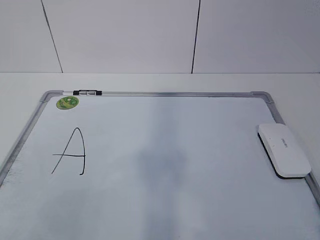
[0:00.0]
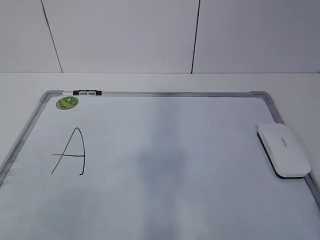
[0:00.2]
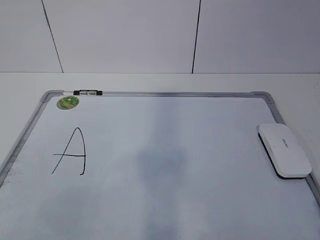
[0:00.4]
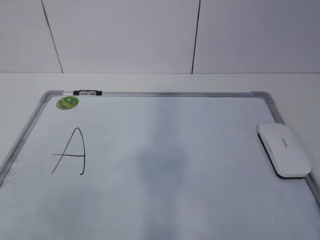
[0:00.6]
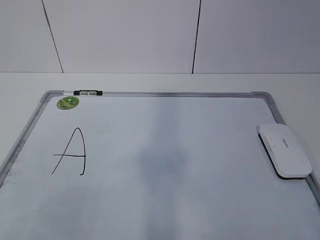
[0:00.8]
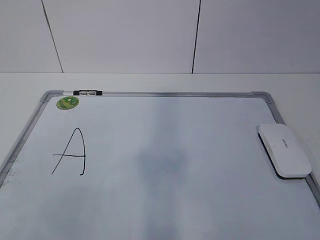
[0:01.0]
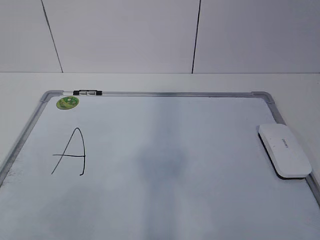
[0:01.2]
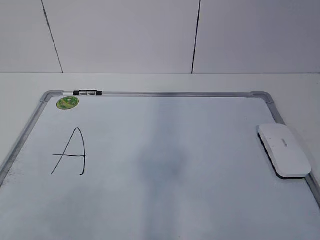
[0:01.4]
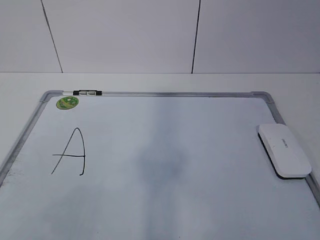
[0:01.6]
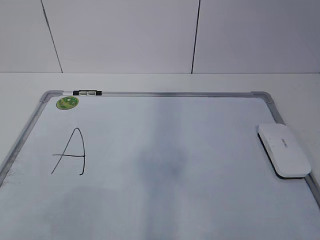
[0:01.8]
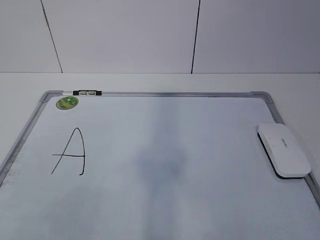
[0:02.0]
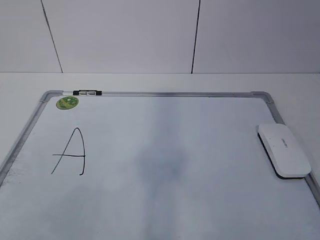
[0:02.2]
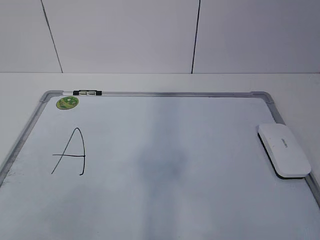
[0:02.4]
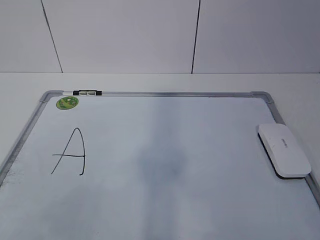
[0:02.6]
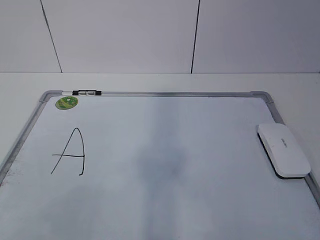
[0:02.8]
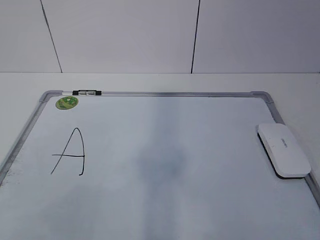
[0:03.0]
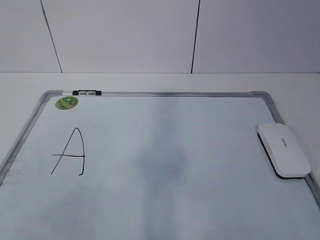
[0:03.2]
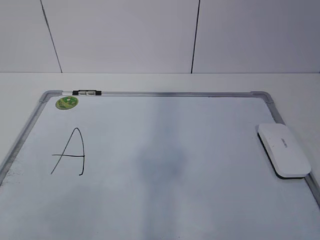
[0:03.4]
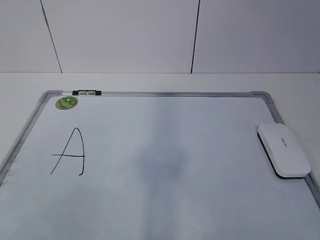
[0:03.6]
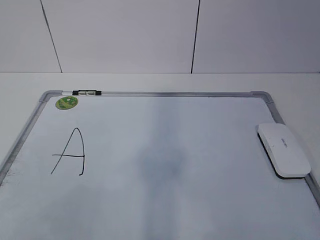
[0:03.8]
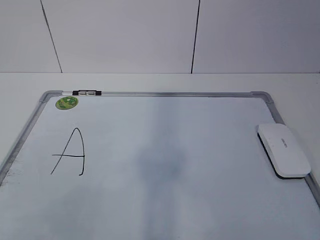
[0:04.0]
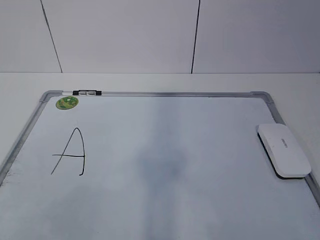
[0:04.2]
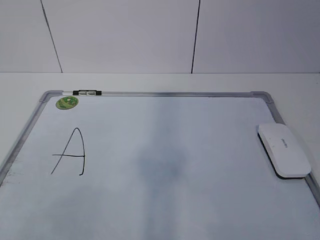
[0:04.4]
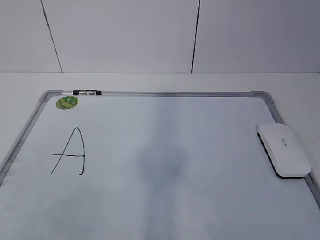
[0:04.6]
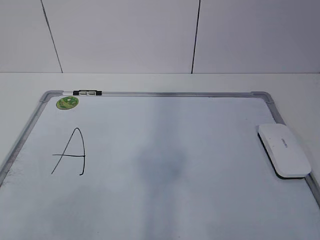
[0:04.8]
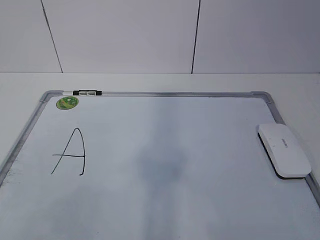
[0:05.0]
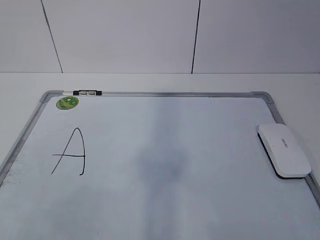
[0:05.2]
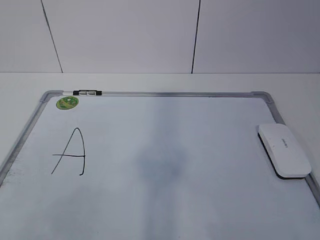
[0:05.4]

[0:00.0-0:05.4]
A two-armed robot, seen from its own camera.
Task of the whole recording: pick up the eraser on the blackboard and erase the letter "a".
0:01.4 to 0:04.0: Both grippers stay put.

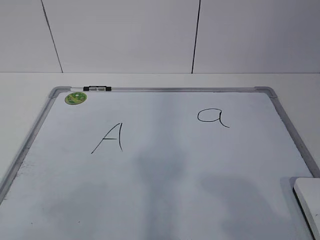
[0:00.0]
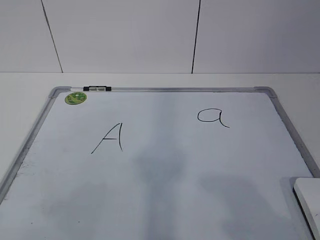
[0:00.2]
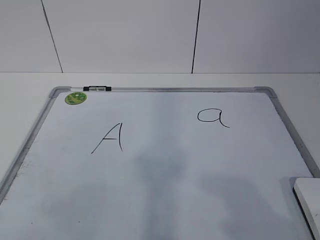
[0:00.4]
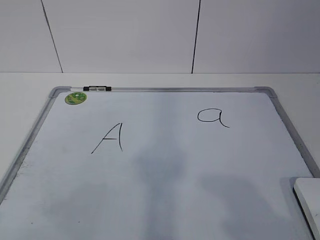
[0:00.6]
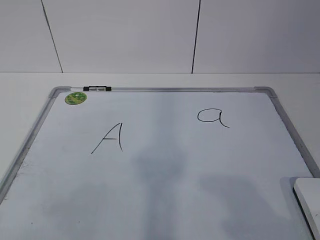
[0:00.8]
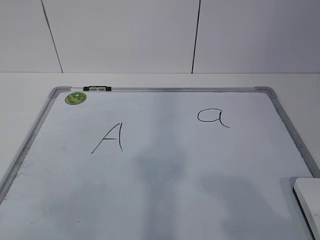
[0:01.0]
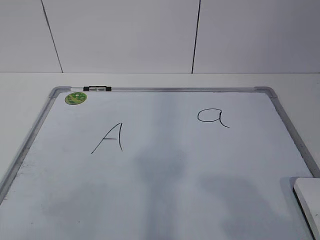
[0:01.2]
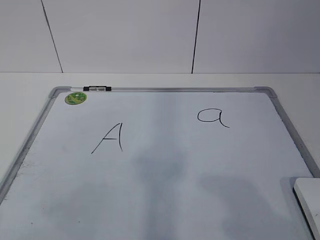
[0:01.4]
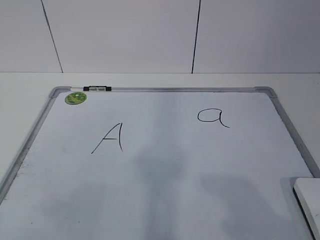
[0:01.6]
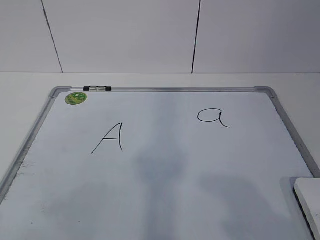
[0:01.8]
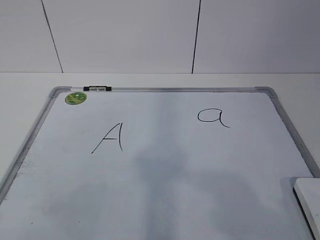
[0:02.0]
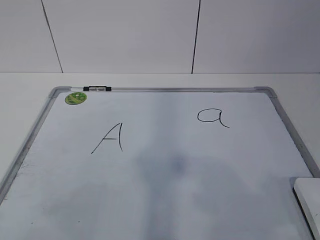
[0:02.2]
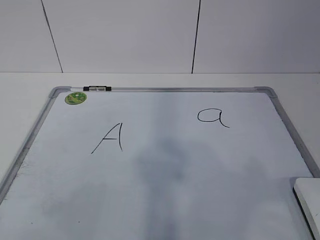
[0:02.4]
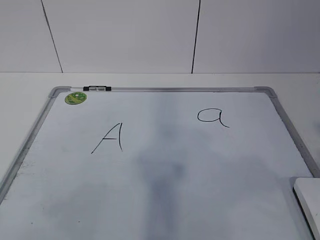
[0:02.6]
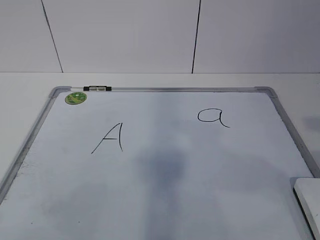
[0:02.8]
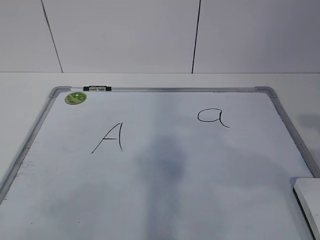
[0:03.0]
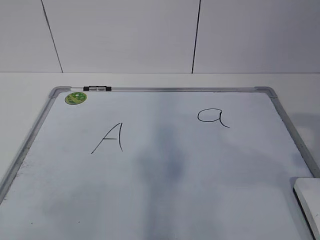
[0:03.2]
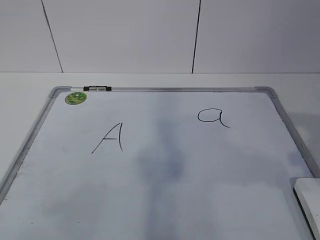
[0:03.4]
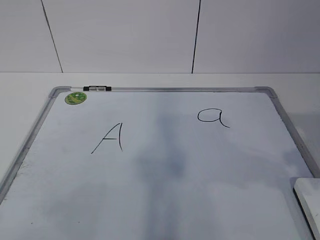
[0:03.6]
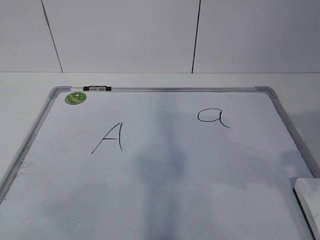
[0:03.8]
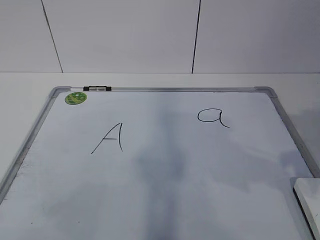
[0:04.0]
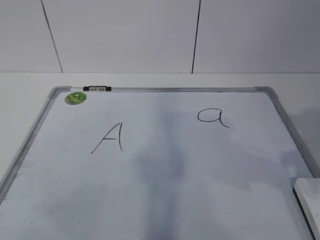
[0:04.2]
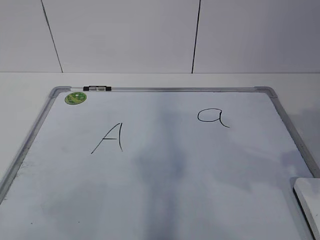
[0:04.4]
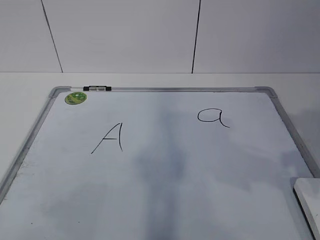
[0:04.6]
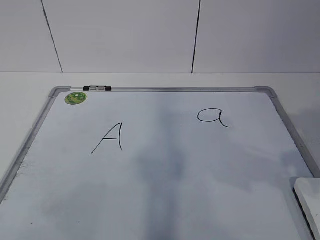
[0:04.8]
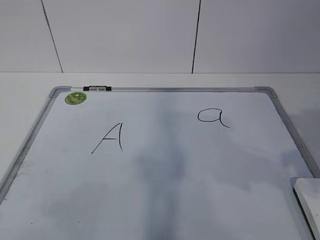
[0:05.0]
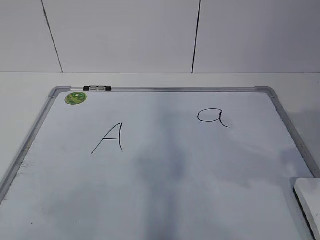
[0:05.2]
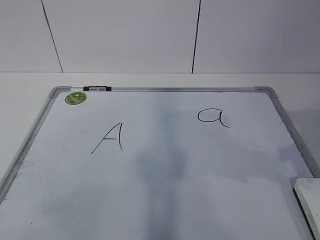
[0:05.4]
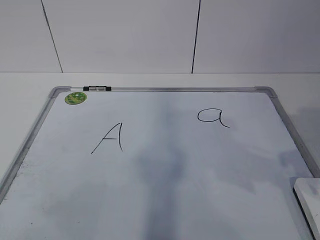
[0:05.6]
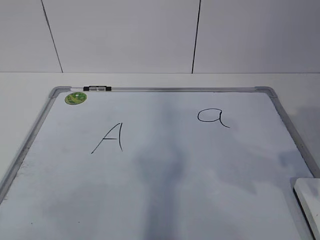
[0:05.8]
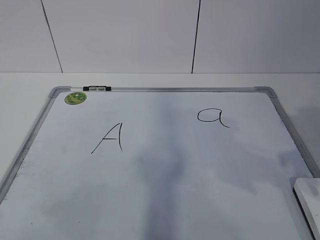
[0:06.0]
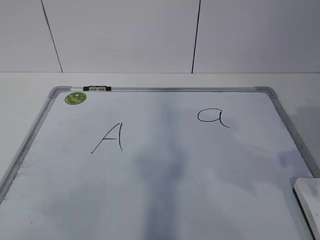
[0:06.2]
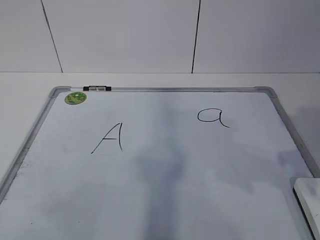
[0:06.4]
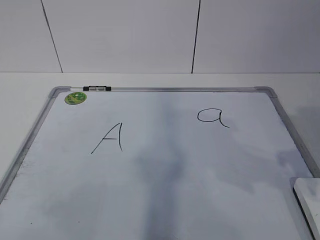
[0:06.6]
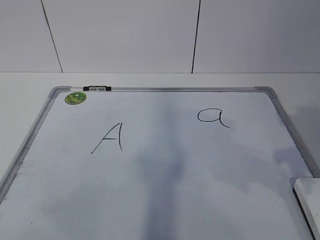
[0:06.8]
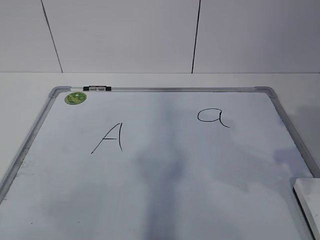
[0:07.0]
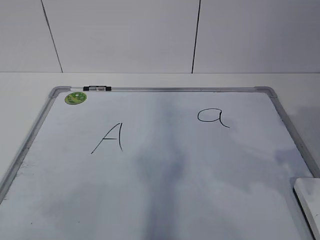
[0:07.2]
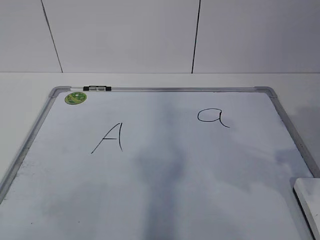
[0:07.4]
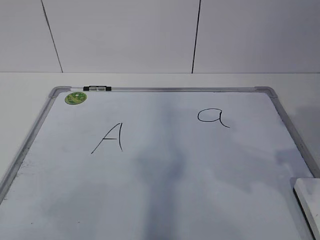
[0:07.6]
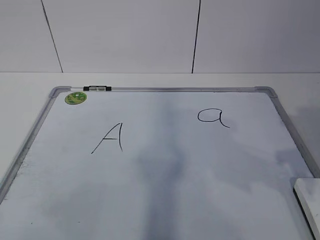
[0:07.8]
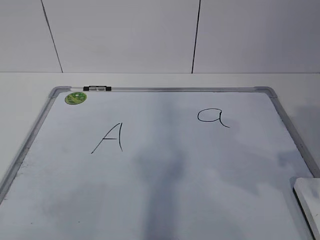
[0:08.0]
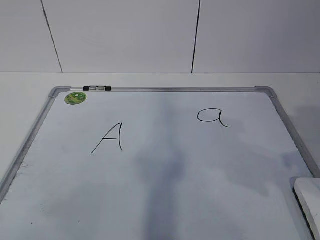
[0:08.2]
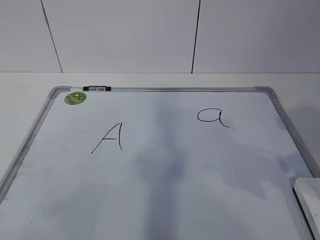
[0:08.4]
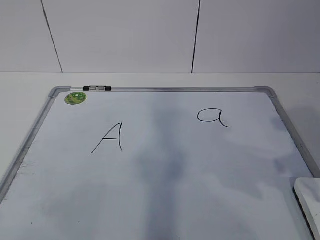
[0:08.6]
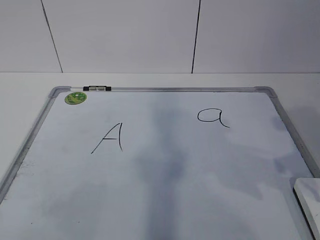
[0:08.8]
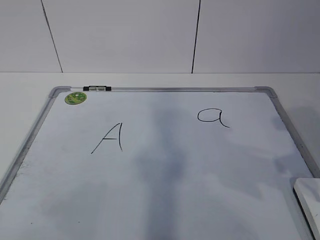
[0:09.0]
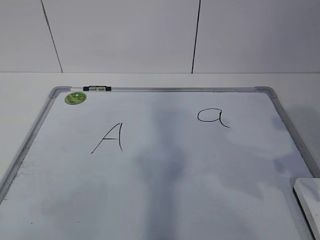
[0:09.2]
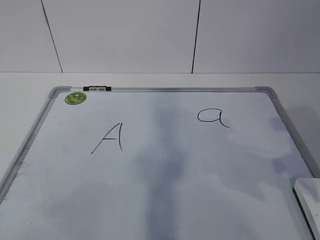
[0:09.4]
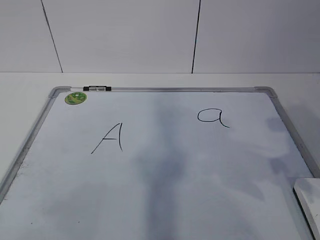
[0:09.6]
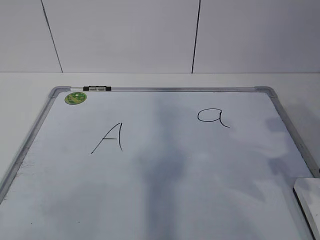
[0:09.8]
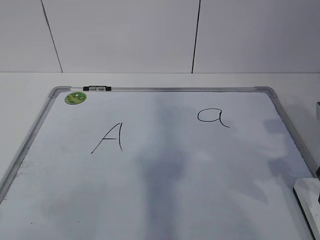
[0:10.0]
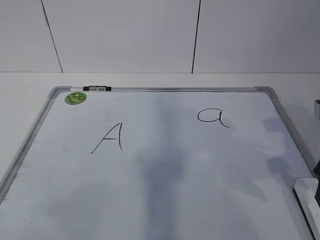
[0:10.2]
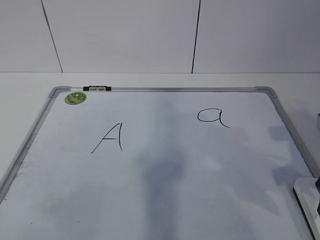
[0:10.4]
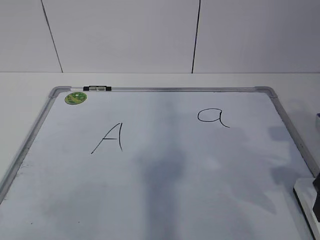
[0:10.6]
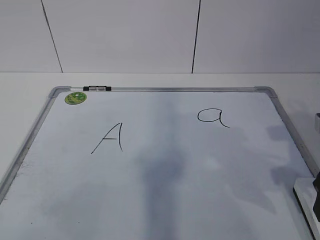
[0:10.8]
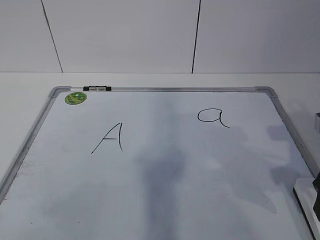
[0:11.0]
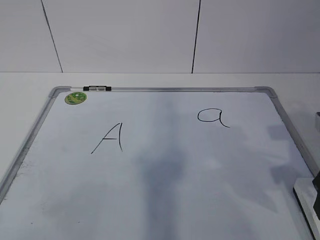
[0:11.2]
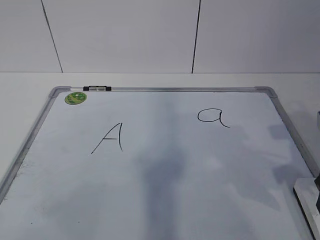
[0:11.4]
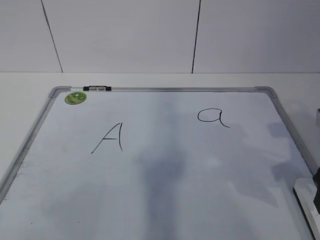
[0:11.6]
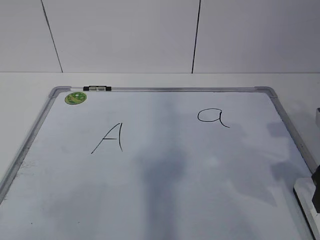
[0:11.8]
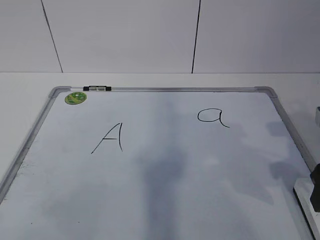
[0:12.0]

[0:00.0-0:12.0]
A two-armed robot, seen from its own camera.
Task of the whole recording: pick up the eraser on the blackboard and erase the letter "a".
0:10.4 to 0:12.0: Both grippers stay about where they are.

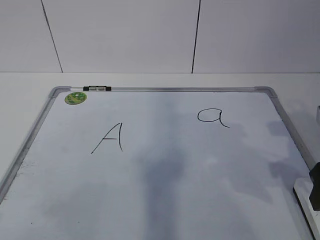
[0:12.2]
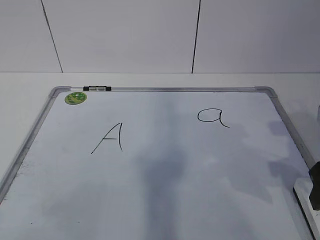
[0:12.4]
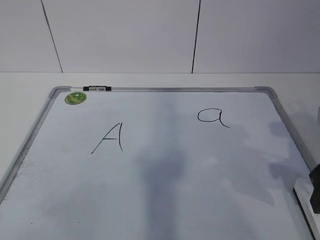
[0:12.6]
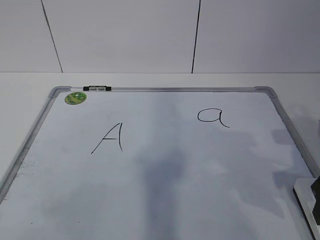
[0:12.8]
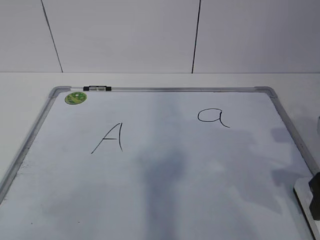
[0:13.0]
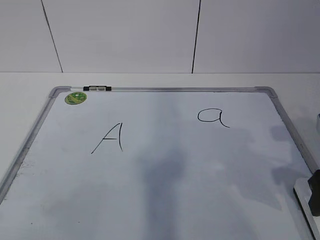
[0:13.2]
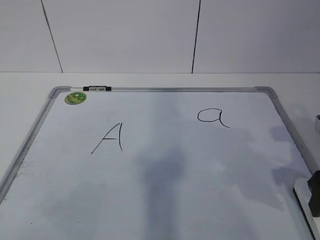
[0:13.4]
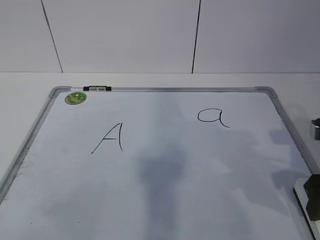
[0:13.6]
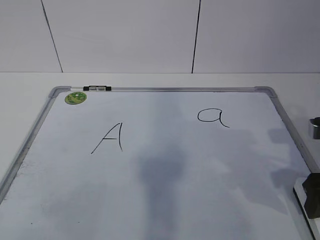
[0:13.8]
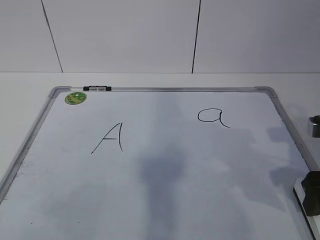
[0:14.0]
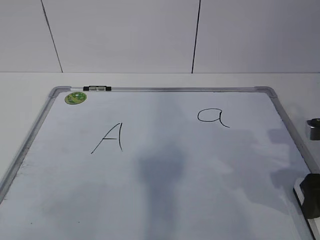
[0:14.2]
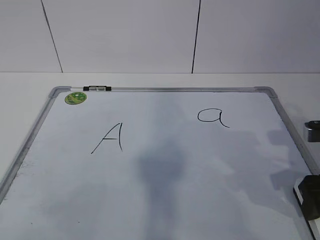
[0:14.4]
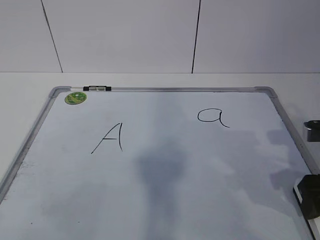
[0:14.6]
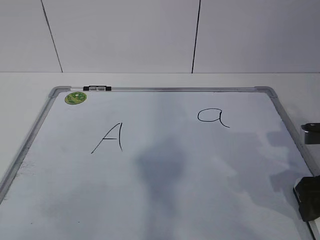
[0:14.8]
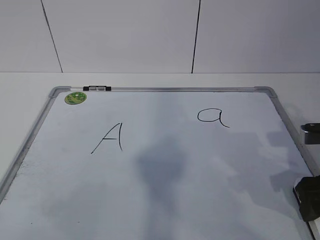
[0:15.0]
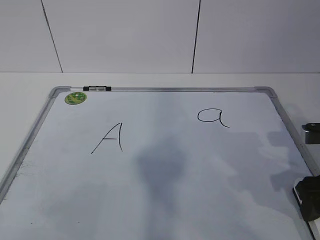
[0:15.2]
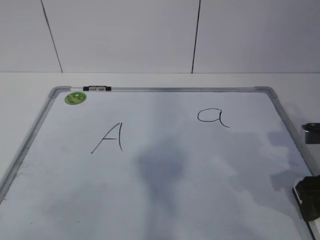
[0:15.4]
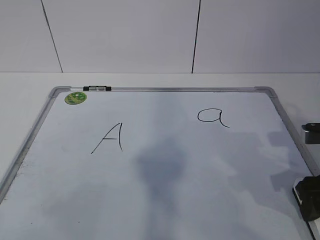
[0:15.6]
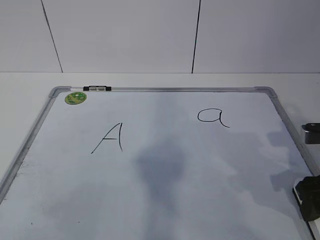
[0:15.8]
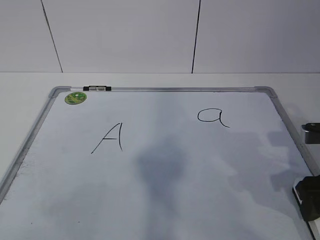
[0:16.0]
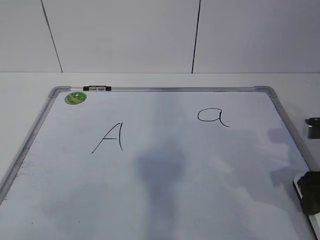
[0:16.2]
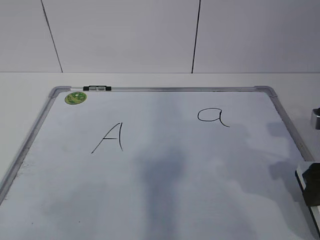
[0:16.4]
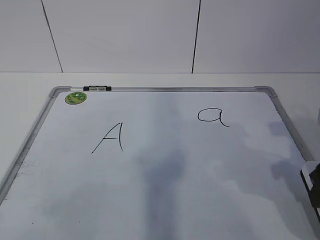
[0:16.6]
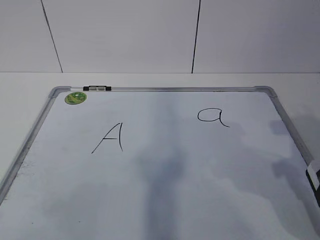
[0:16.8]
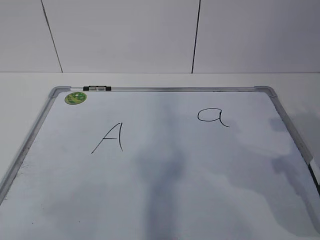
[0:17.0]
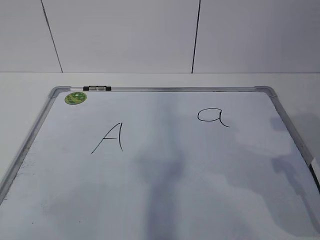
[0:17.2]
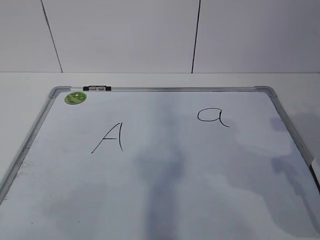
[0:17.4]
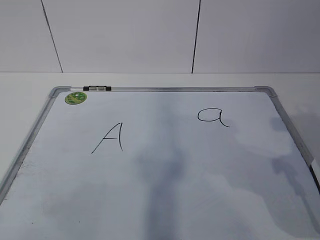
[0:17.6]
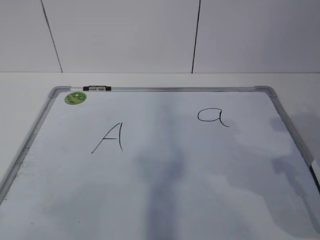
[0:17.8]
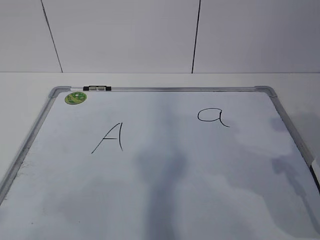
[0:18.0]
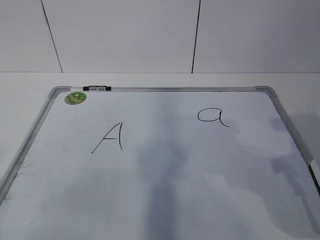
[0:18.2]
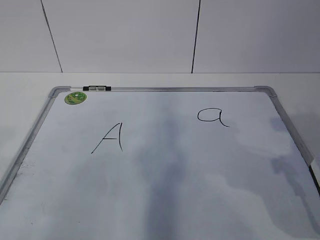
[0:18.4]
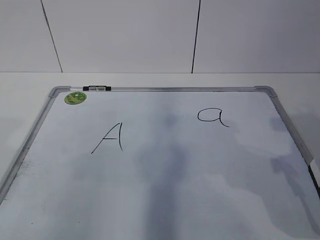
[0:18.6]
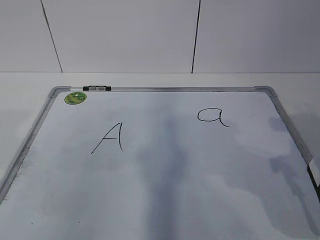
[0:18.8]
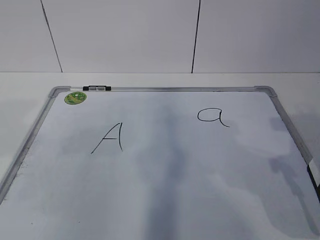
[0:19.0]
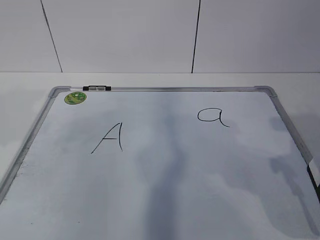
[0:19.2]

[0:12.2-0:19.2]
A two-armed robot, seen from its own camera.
Task of the whole recording: pick up the eraser on the blackboard and erase the letter "a".
0:12.2 to 0:13.6: There are only small adjustments of the grippers.
0:15.0 to 0:16.4: The right gripper closes.
0:16.4 to 0:17.8: There are only small adjustments of the grippers.
